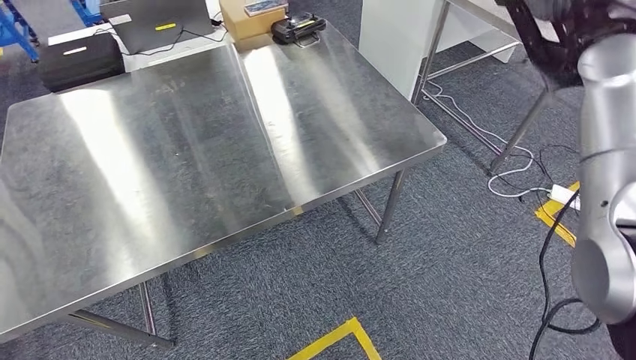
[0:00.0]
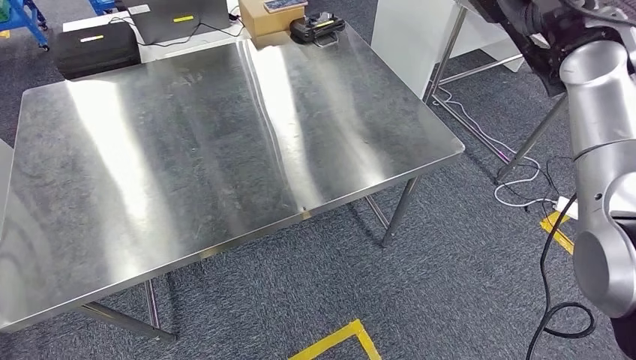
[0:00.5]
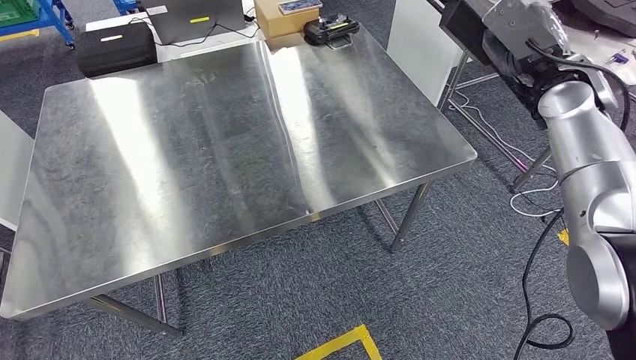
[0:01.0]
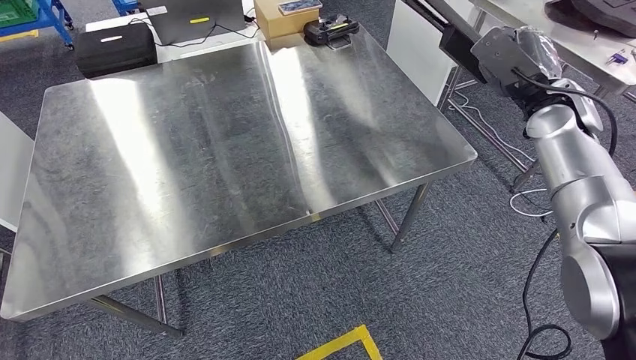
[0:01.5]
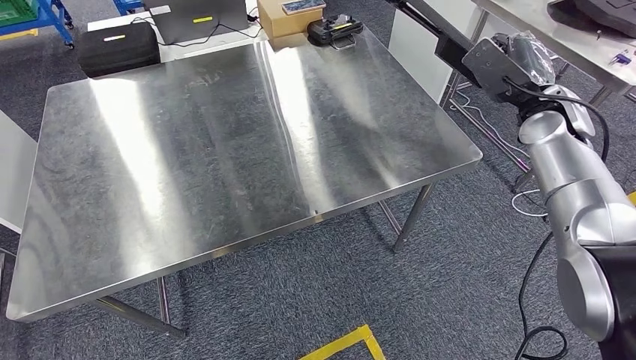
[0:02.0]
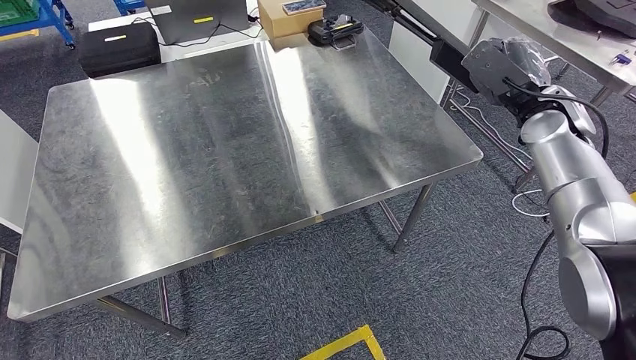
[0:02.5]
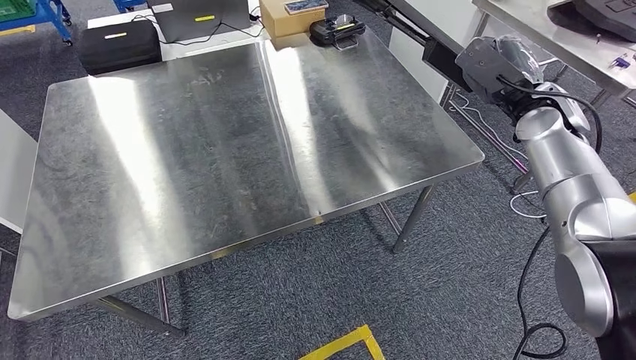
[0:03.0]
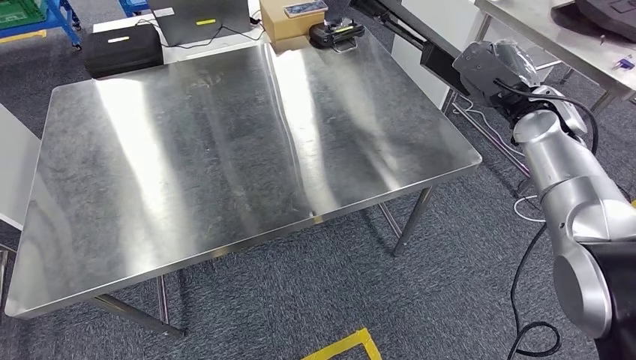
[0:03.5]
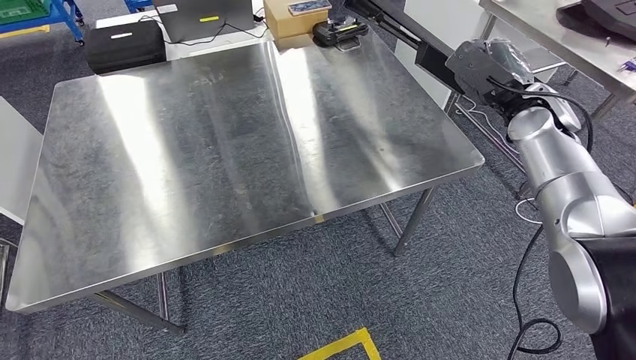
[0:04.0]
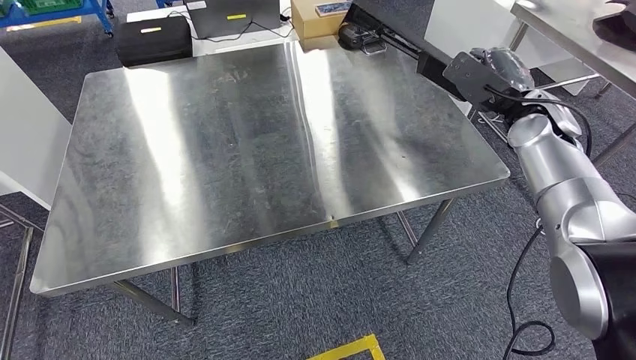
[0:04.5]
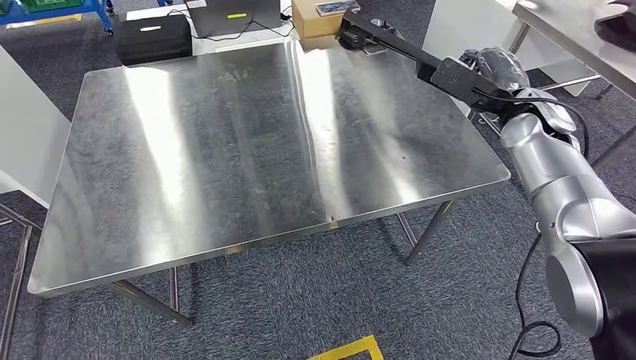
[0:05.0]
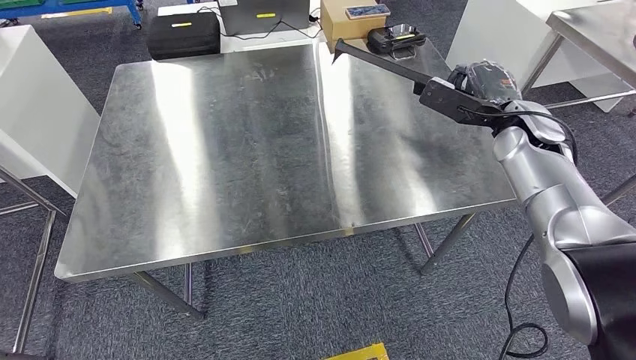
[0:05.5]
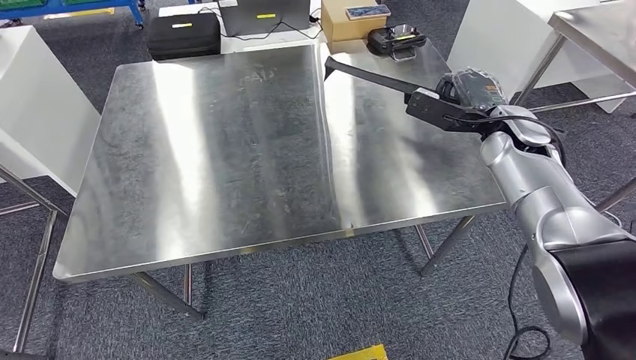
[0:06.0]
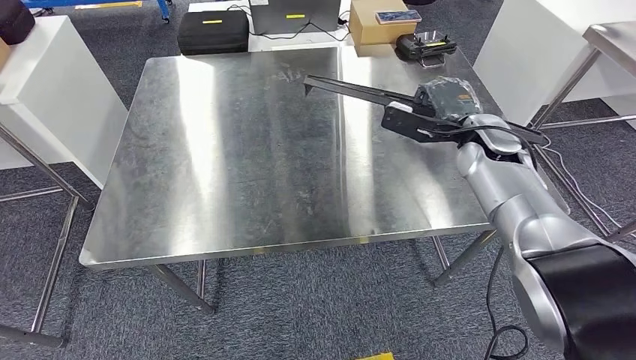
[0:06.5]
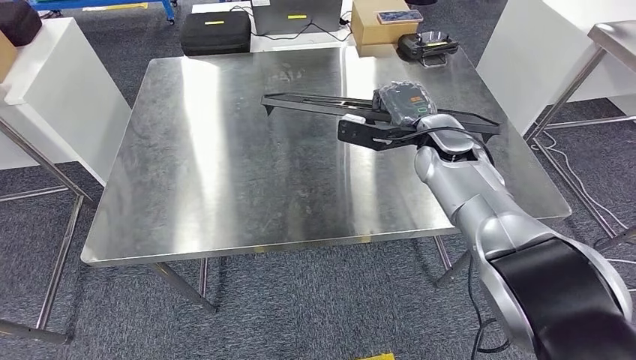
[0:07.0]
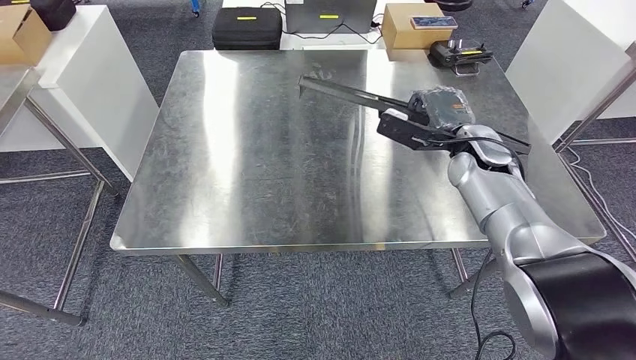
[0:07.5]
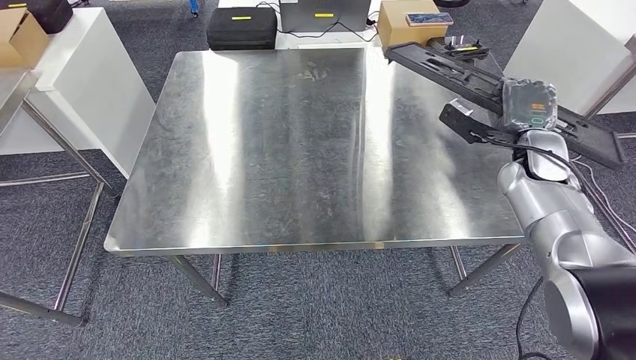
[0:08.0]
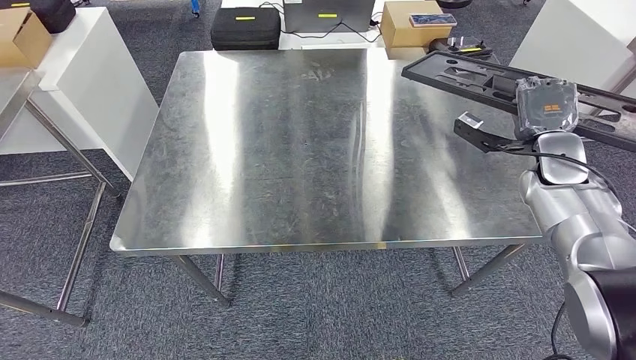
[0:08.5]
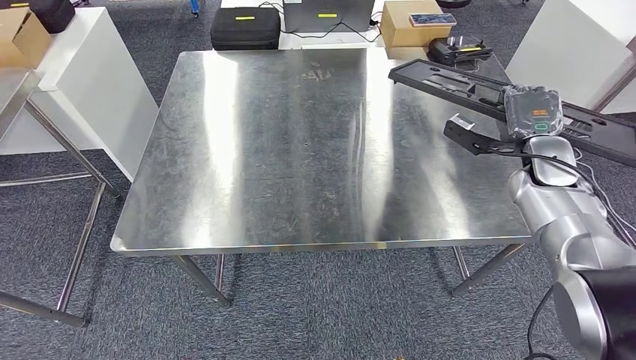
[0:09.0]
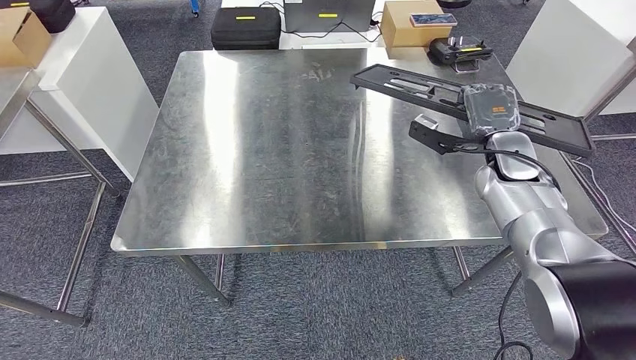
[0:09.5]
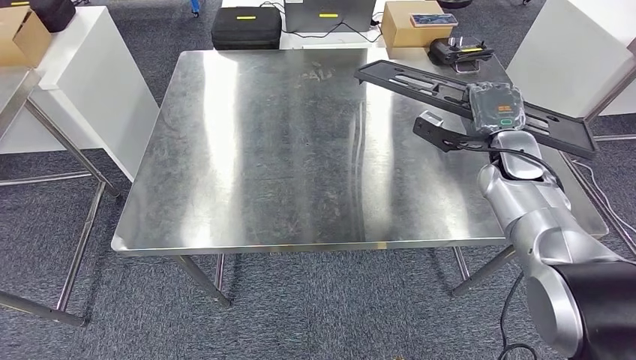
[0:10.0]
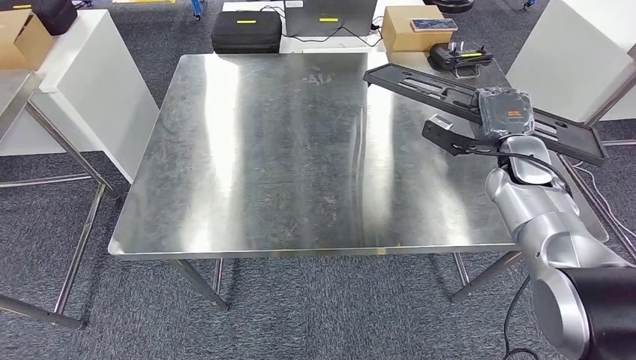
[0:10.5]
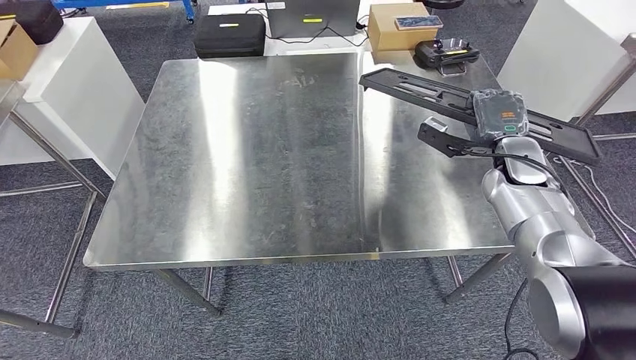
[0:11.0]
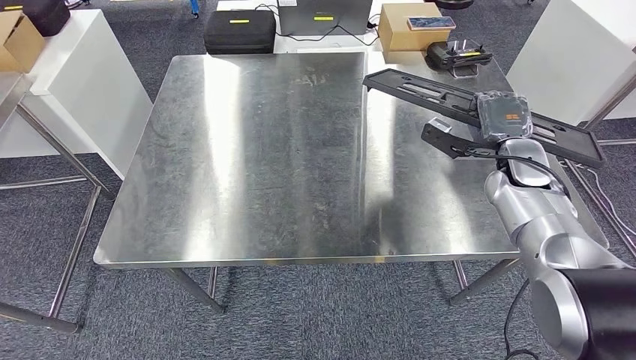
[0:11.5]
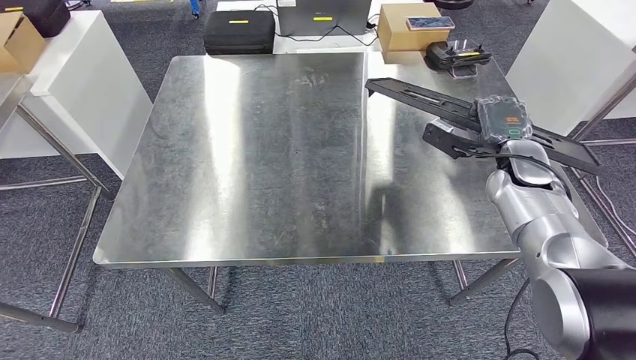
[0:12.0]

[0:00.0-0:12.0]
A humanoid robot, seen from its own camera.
0:08.0 to 0:10.0: The hands make only small movements.

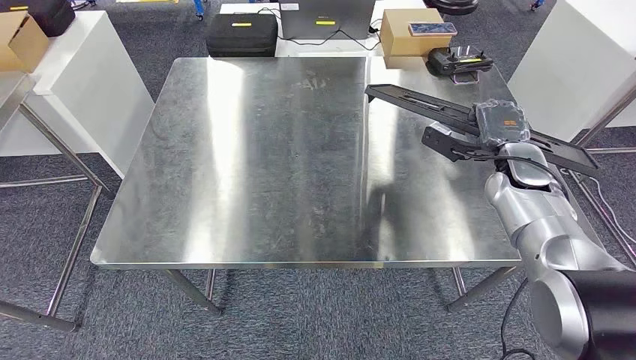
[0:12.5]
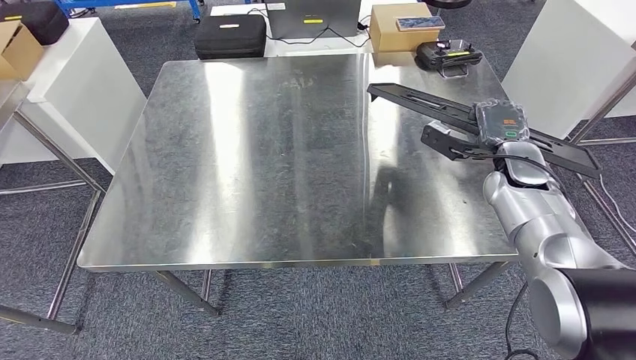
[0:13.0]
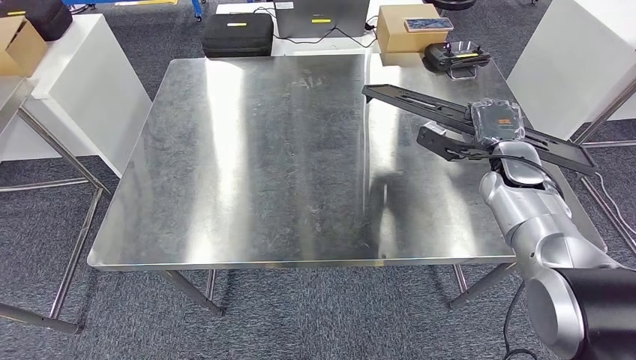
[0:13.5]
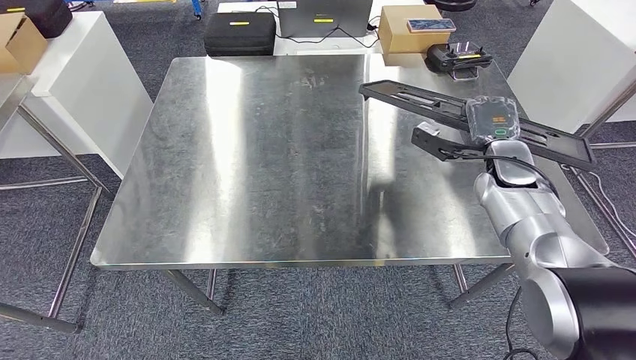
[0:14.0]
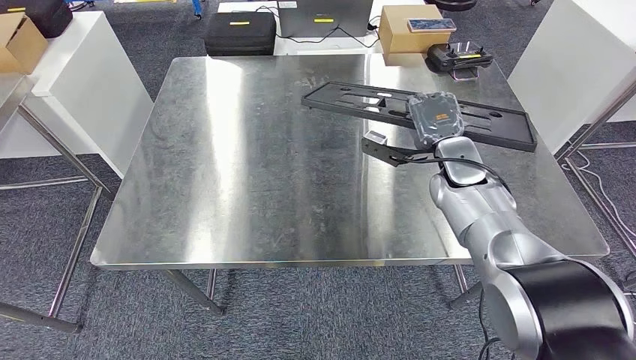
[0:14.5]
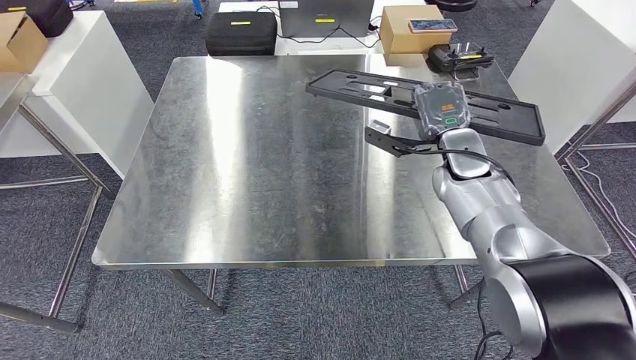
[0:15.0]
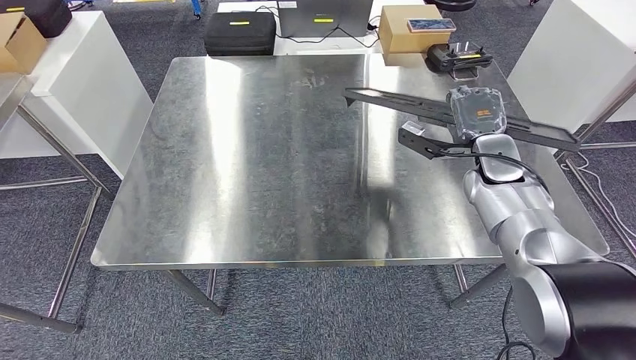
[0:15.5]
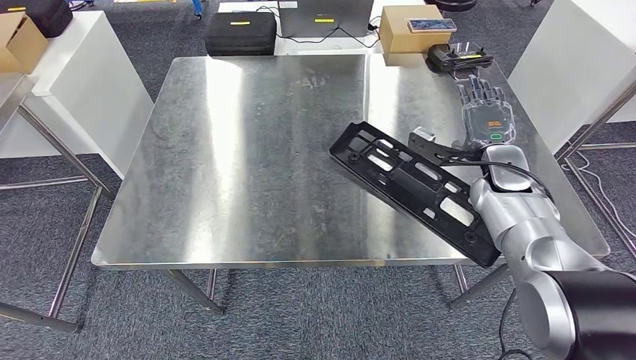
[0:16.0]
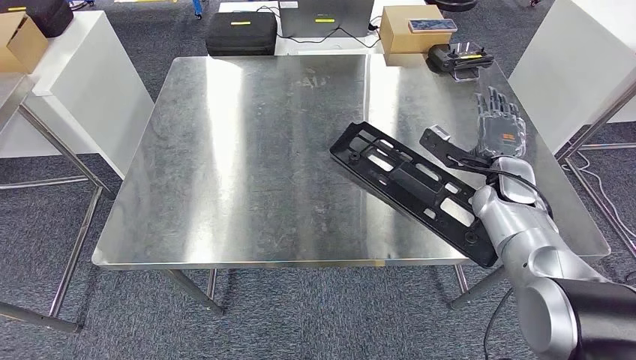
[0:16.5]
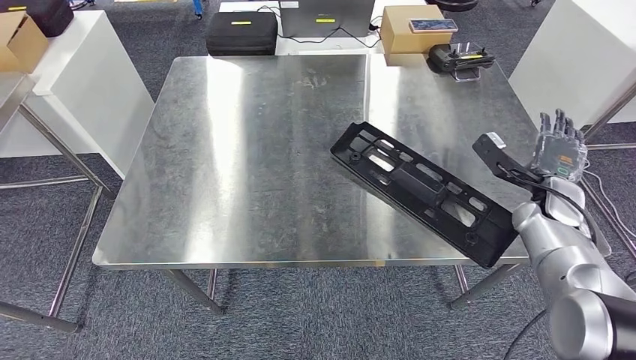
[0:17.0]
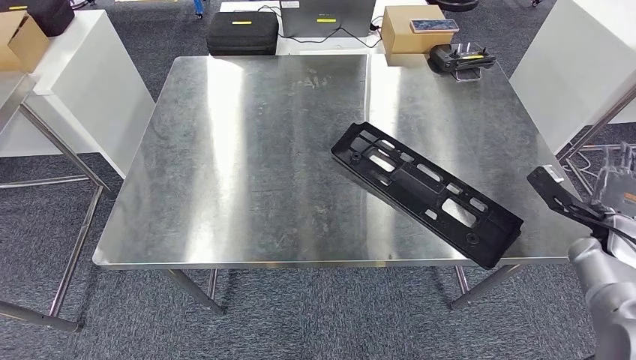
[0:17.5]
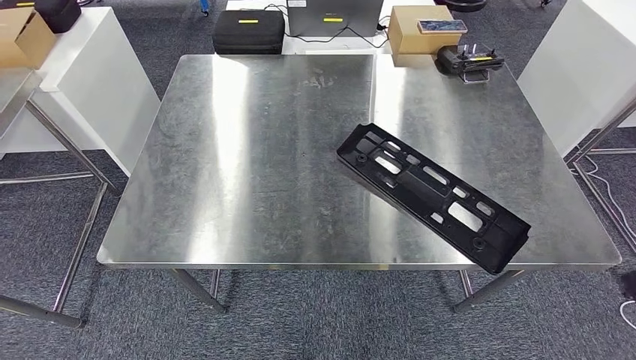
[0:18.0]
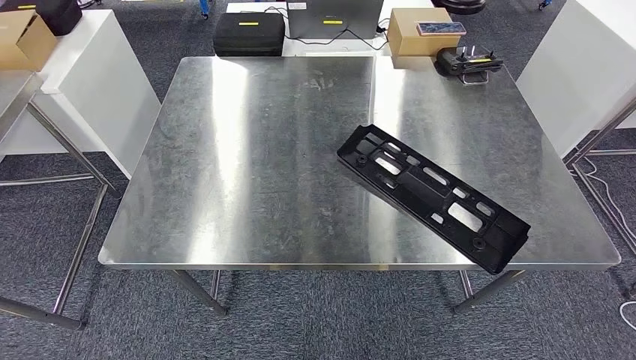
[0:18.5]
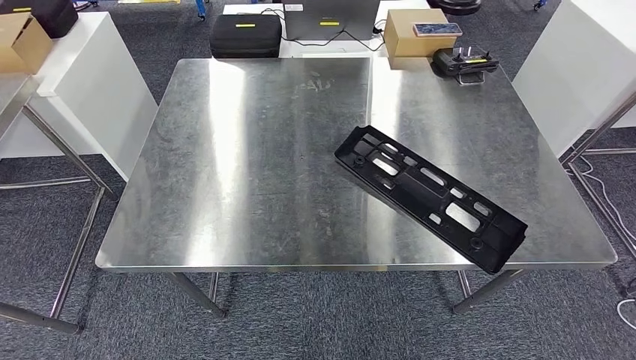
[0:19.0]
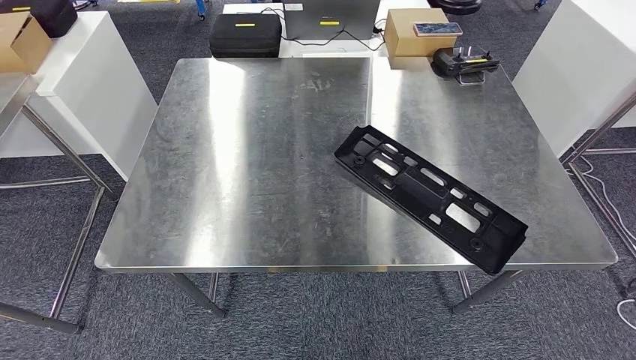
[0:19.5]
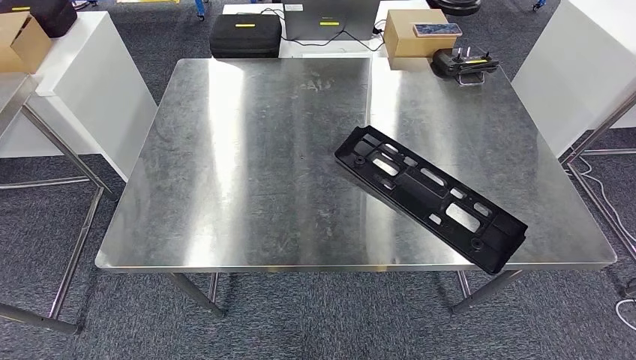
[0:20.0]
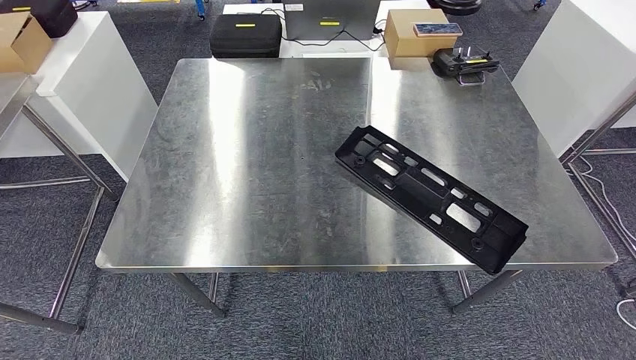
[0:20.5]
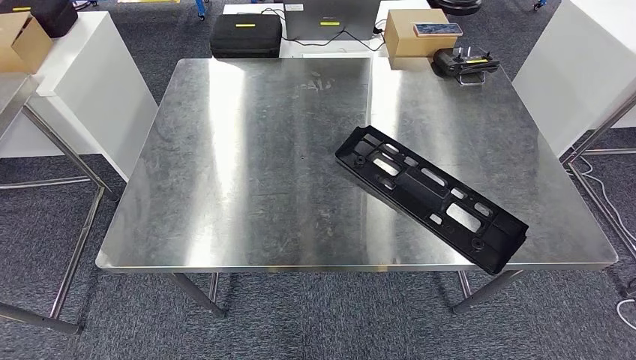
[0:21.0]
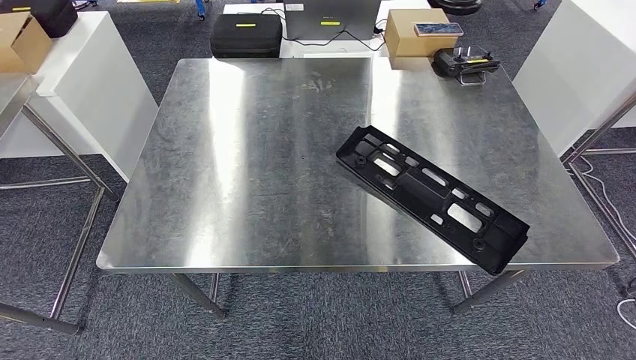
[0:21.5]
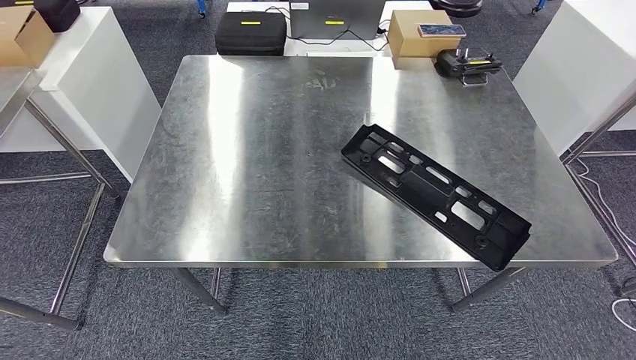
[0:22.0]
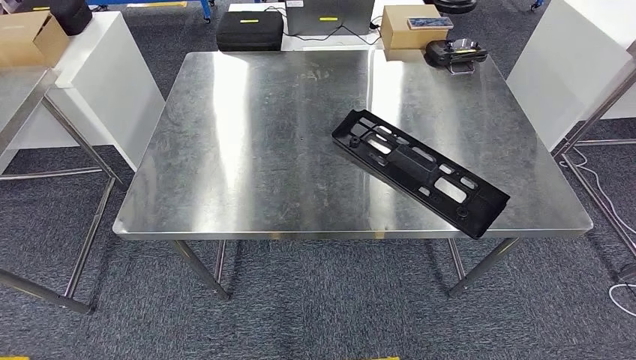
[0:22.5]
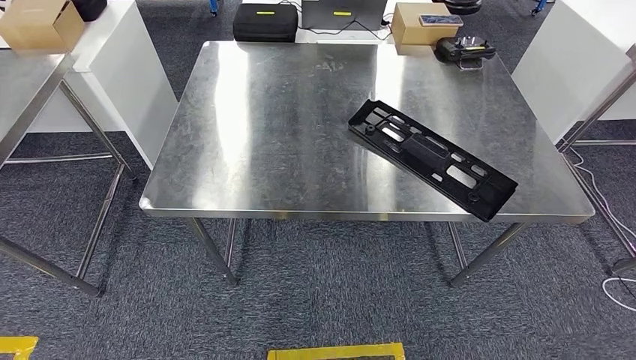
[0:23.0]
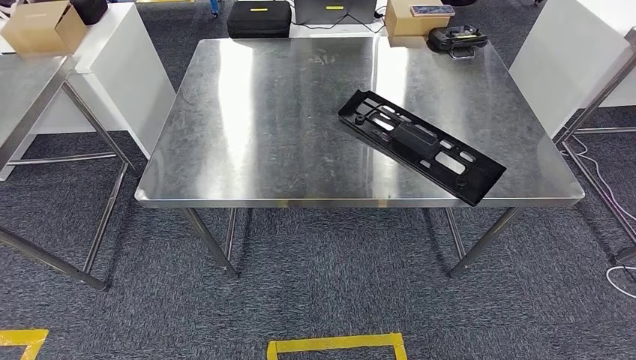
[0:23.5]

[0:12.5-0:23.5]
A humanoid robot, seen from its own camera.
Step, 0:12.5 to 0:15.5: Insert the large material into the corresponding slot on the workbench.
0:14.5 to 0:16.0: The right hand travels to the right by about 10 cm.
0:18.0 to 0:20.0: The right hand moves to the left and downward, about 40 cm.
0:20.0 to 0:21.5: The hands stay close to where they were, moving slightly.
